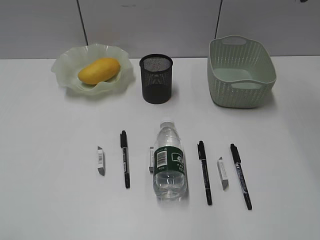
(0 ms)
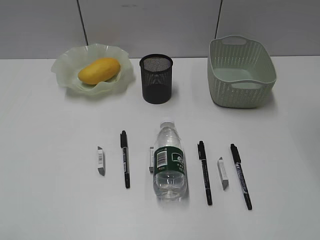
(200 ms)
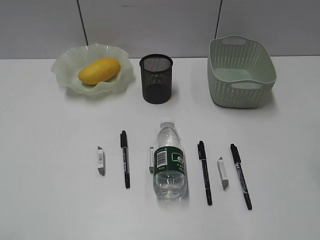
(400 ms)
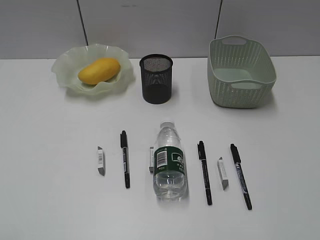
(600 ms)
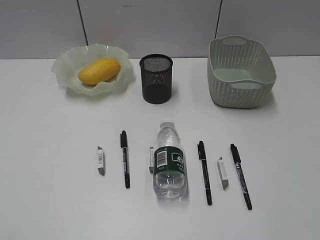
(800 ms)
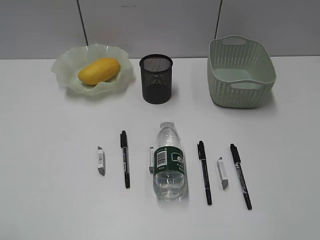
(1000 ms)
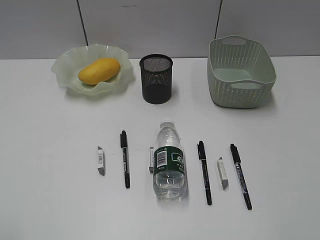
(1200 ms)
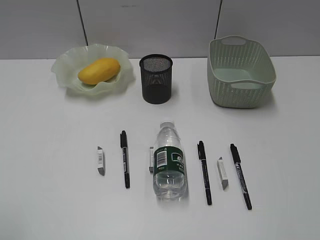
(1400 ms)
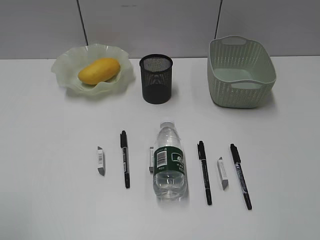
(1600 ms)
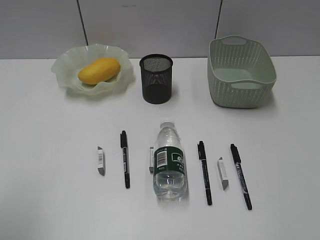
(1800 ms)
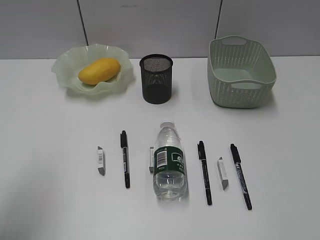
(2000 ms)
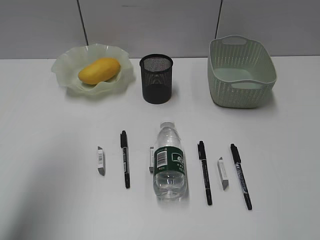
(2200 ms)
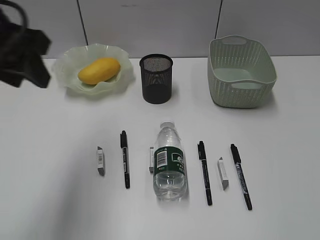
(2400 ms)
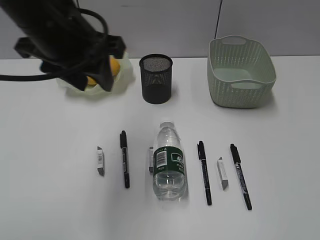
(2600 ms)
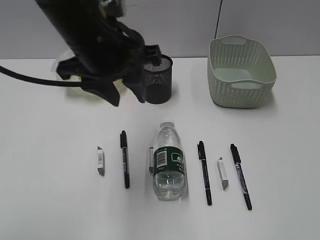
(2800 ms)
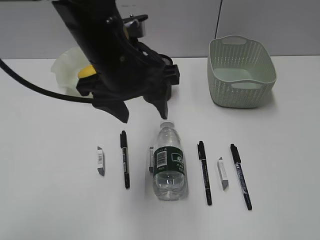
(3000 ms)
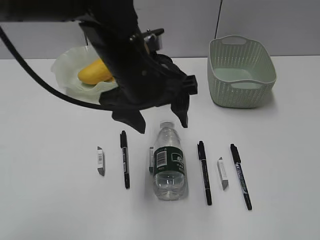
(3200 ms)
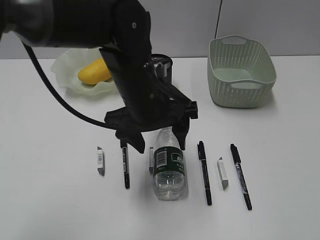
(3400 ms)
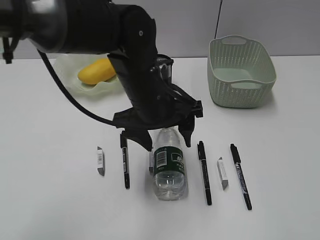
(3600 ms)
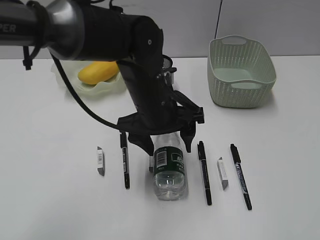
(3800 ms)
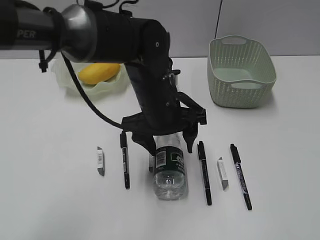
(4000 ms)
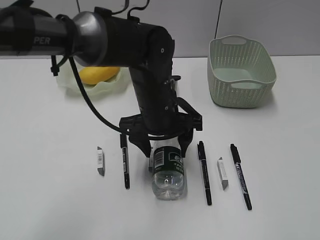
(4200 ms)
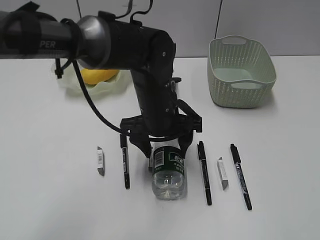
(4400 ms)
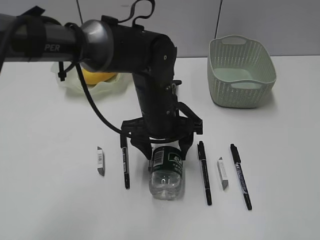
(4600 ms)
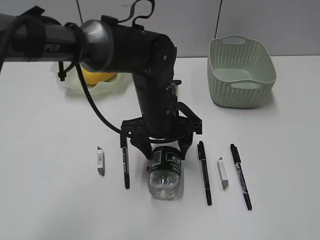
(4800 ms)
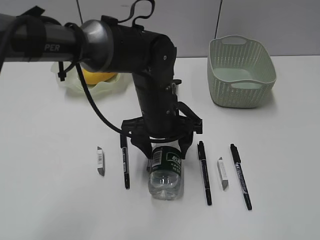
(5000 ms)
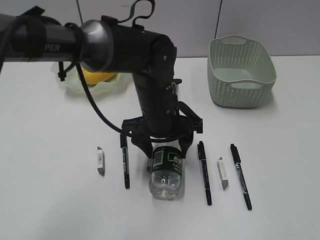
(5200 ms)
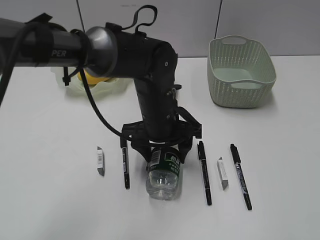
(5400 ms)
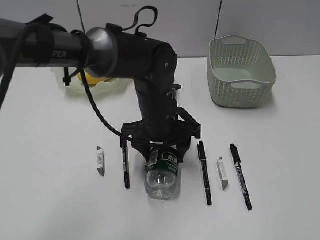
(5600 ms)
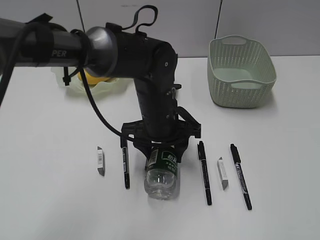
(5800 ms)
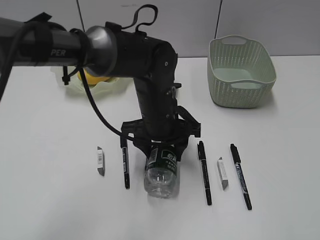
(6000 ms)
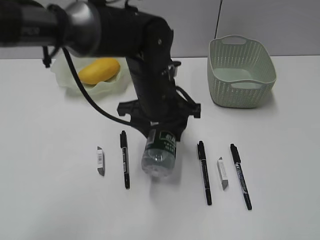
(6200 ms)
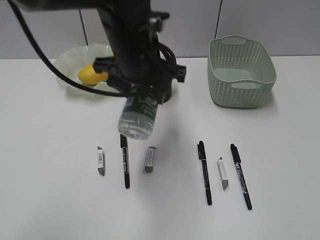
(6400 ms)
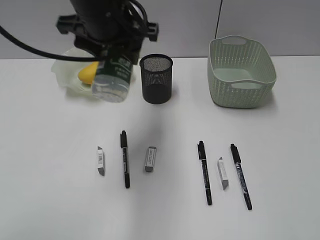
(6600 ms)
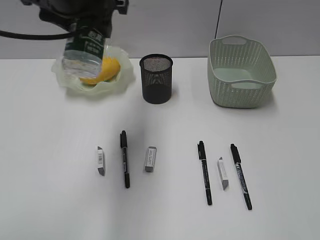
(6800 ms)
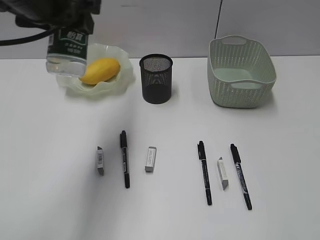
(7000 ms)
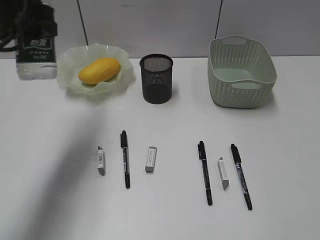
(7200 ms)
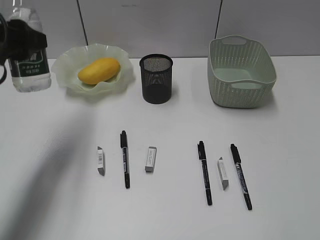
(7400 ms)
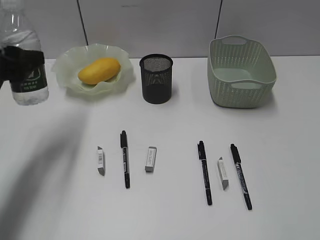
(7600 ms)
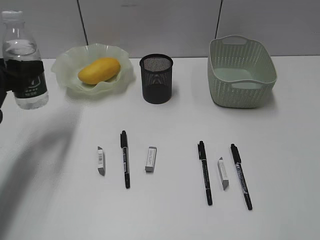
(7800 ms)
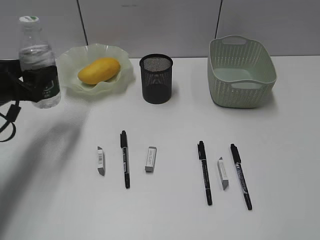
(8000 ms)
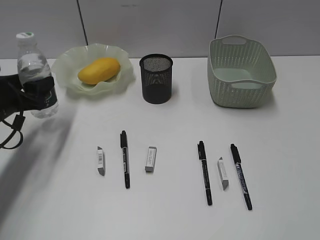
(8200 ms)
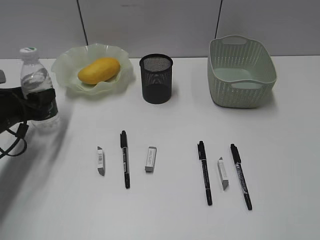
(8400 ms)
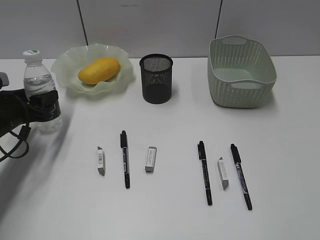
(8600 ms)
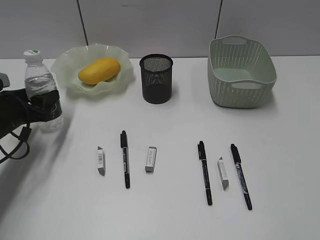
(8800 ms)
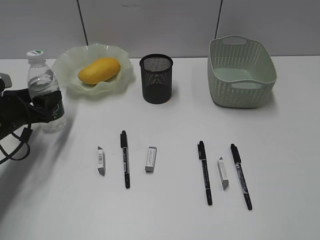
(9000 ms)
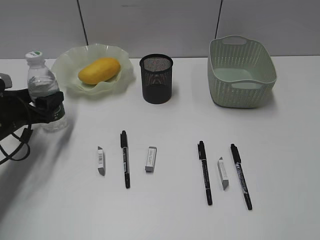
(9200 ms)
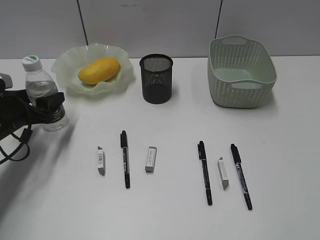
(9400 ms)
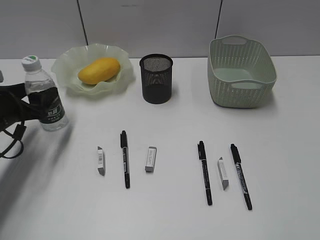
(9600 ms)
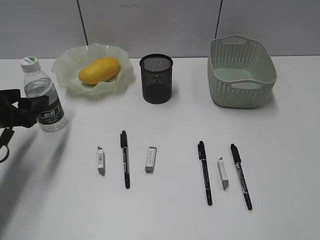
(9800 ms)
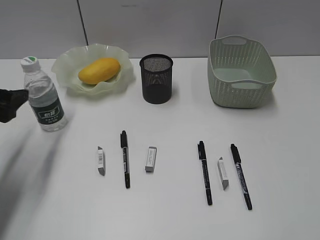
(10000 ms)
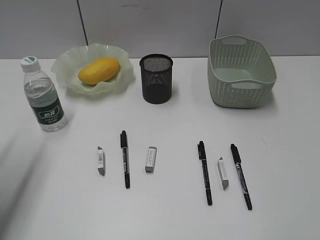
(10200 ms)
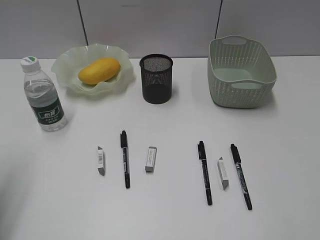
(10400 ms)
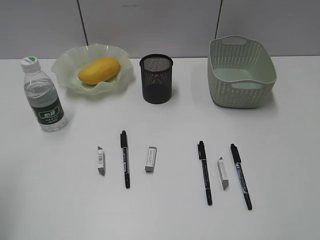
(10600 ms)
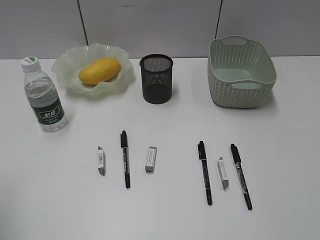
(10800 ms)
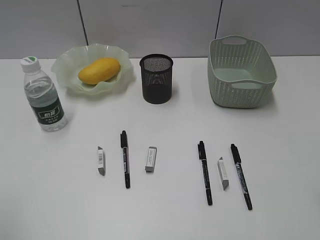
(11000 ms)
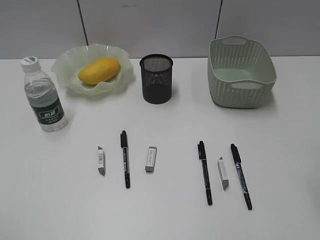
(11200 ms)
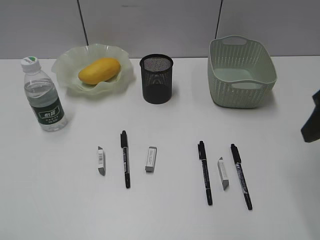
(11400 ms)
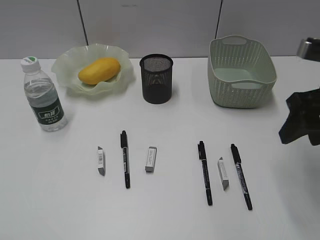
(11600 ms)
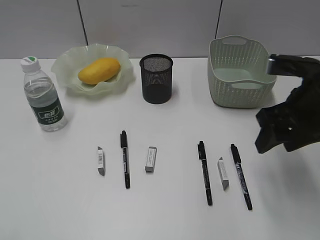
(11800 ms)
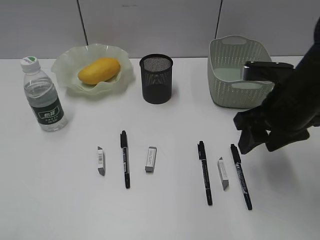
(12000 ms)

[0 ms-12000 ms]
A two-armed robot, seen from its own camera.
Step, 0 ms to 5800 ms: Grasp the bottle with left gripper.
Step, 6000 ms to 9800 ms: Stand the bottle with left gripper.
1600 ms to 3000 ms: The left gripper is displaced to the right and forward by some 35 cm, and opens up.
3000 ms to 4400 ms: The left gripper shifts approximately 10 cm downward.
4400 ms to 6000 ms: The grippers make only small movements.
6000 ms to 7600 ms: The left gripper moves to the left, roughly 30 cm.
7600 ms to 9000 ms: The left gripper moves downward, about 15 cm.
9000 ms to 10400 ms: The left gripper moves upward and backward, approximately 25 cm.
10400 ms to 12000 ms: The left gripper shifts about 15 cm backward; the right gripper shifts some 30 cm forward and to the left.

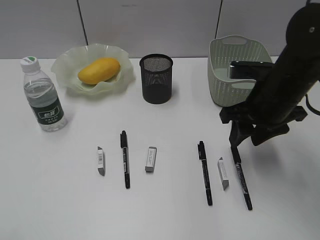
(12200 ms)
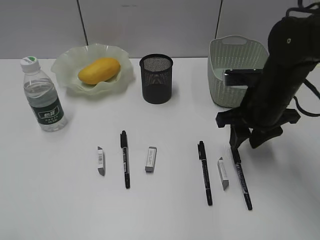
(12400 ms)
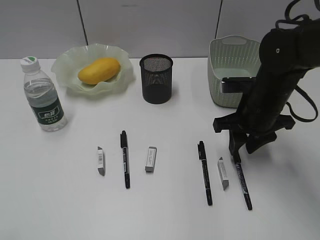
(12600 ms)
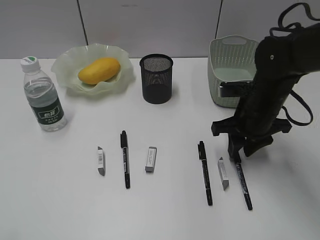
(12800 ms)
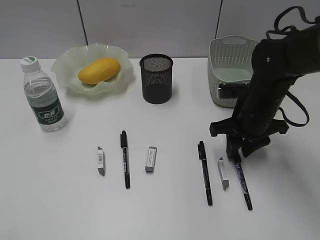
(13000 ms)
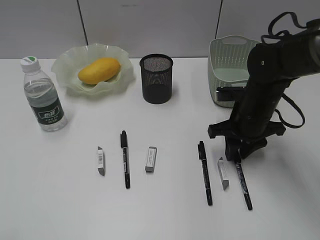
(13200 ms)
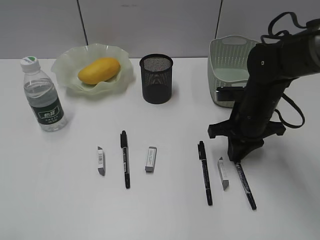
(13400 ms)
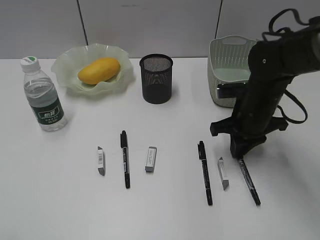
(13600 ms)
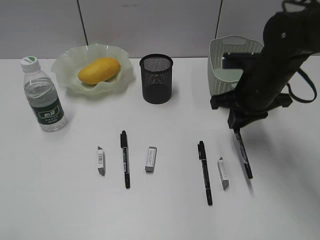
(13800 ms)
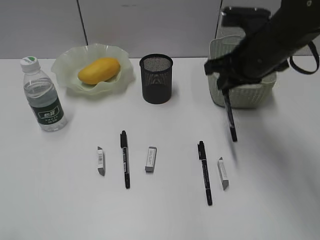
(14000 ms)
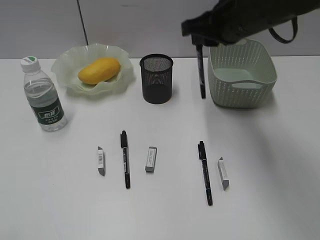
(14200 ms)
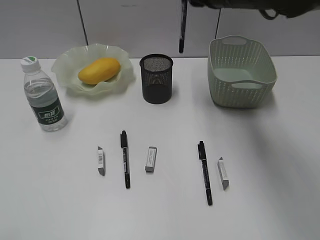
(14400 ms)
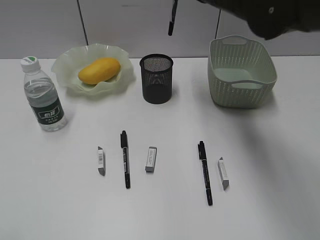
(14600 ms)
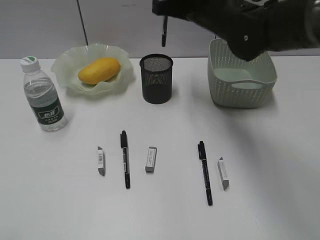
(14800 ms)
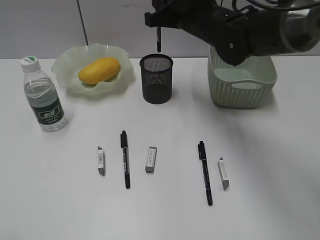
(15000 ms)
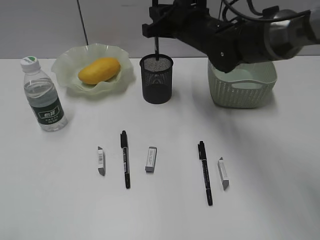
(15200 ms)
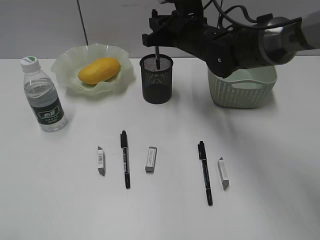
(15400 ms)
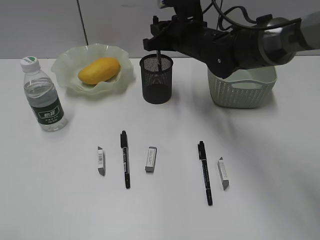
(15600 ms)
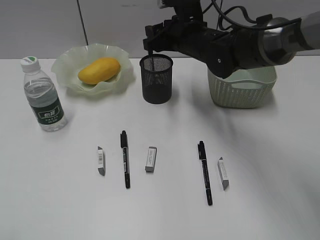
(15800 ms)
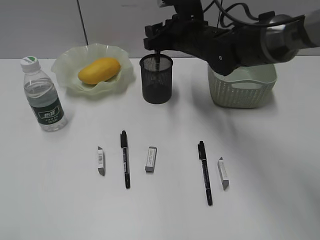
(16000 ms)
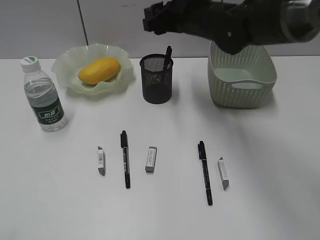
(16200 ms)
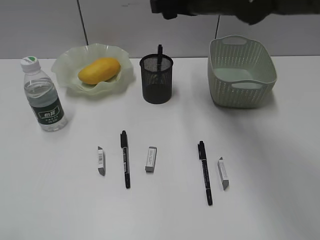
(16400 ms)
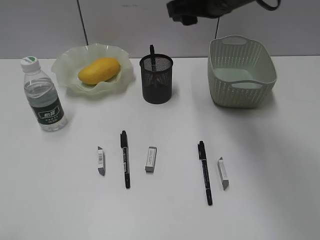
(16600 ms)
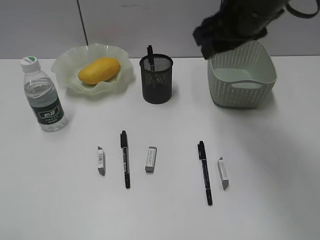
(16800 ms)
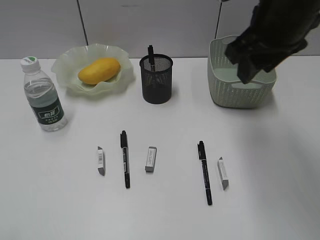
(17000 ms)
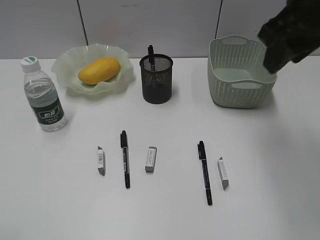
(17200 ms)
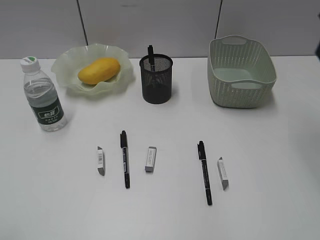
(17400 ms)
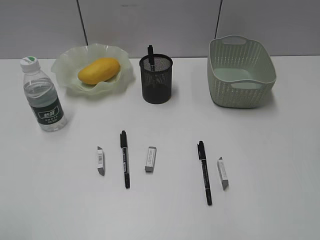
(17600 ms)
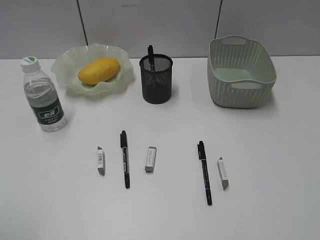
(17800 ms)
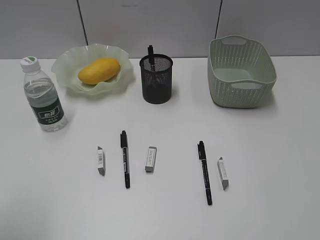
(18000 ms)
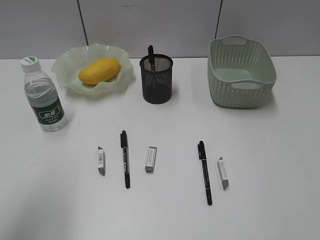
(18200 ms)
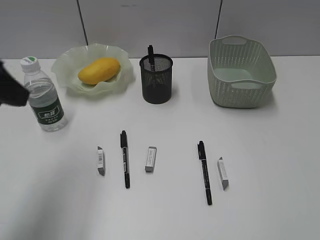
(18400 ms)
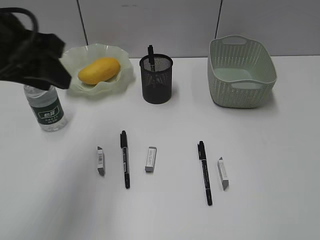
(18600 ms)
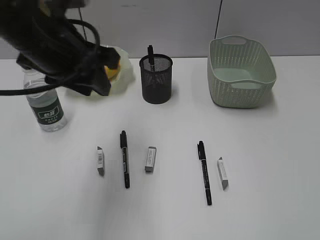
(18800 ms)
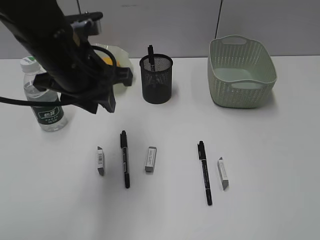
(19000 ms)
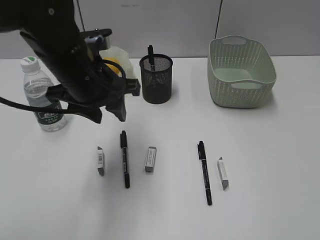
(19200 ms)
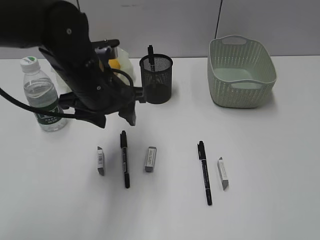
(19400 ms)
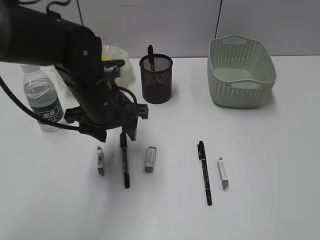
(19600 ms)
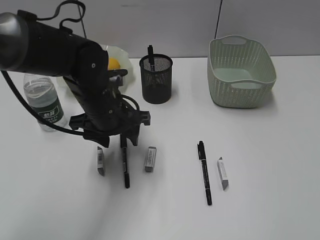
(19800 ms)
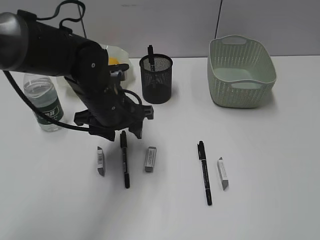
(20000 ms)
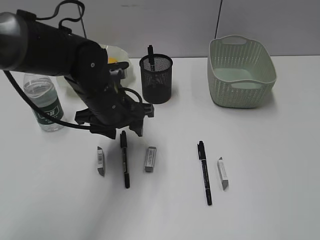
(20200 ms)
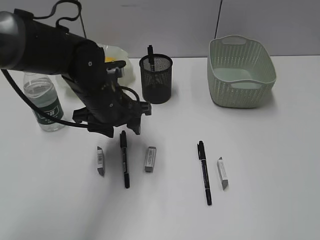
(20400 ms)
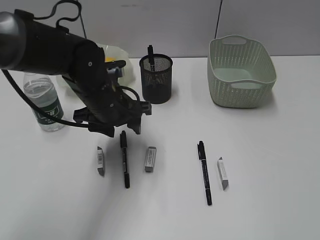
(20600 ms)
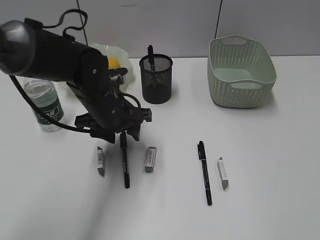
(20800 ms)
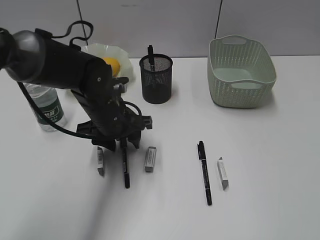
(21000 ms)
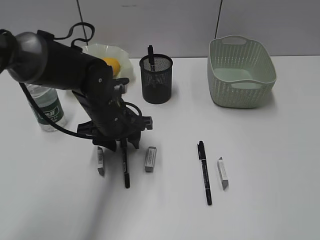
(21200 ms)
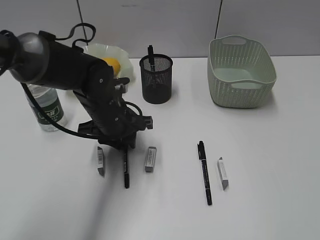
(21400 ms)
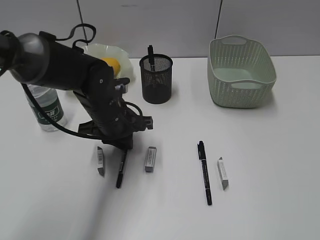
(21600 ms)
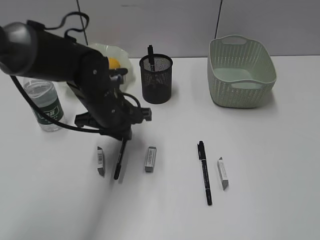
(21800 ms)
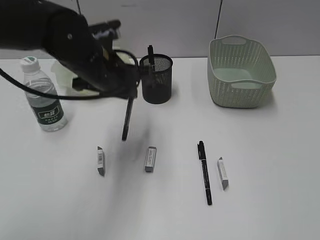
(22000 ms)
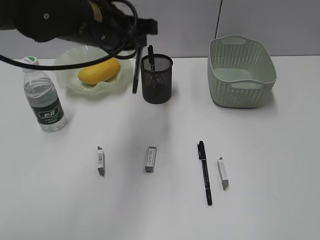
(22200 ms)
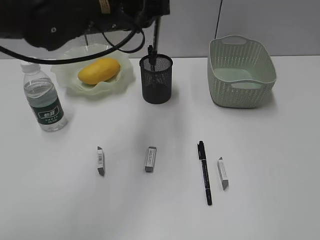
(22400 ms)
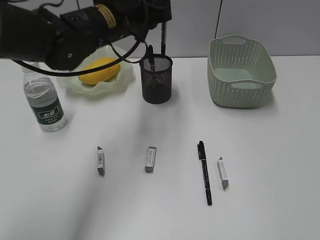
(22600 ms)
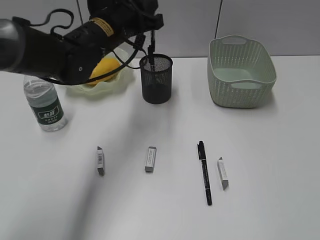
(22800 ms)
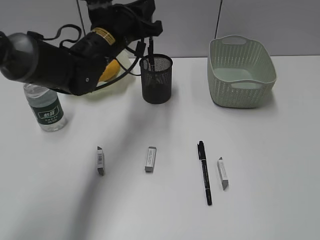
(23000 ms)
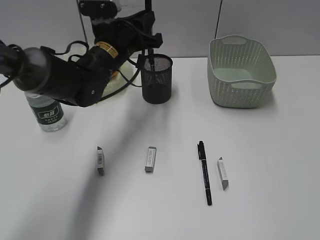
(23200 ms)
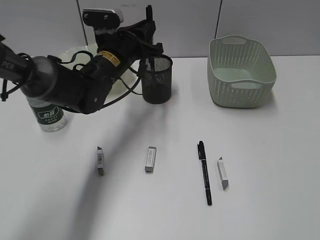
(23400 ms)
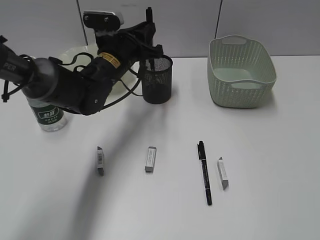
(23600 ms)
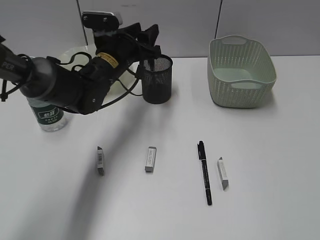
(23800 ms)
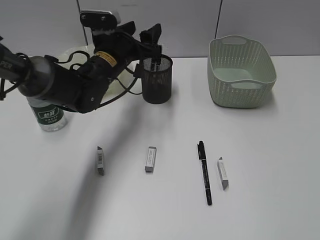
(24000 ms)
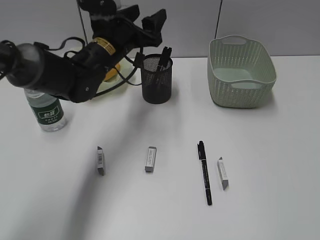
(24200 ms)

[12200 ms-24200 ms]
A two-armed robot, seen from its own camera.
Step, 13600 ms to 16000 ms: Place the black pen in pen holder with right gripper.
Step, 16200 ms to 21600 ms: Grasp the black pen with left gripper.
Step, 21800 ms to 24000 ms: Place the black pen in pen holder with left gripper.
12200 ms to 13800 ms: The right gripper goes downward and returns, roughly 5 cm each way, and closes its fingers.
13800 ms to 15200 ms: The right gripper shifts about 15 cm to the left and forward, and moves approximately 10 cm upward and comes back.
15200 ms to 16600 ms: The right gripper moves upward and backward, roughly 10 cm, and opens its fingers.
16600 ms to 18200 ms: The left gripper moves forward, approximately 15 cm. Meanwhile the right gripper shifts about 35 cm backward and to the right.
18200 ms to 19800 ms: The left gripper travels to the right, forward and downward by roughly 30 cm.
19800 ms to 21200 ms: The right gripper goes some 5 cm backward.
21200 ms to 22600 ms: The left gripper moves upward and forward, about 15 cm, and closes.
22600 ms to 24200 ms: The left gripper opens its fingers.
